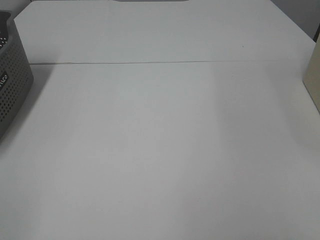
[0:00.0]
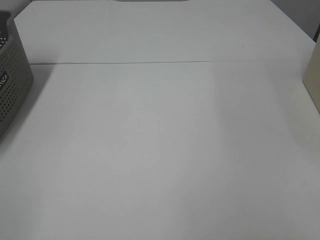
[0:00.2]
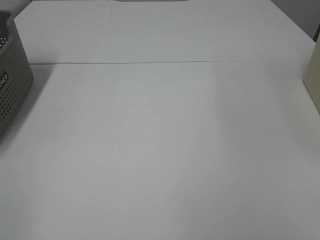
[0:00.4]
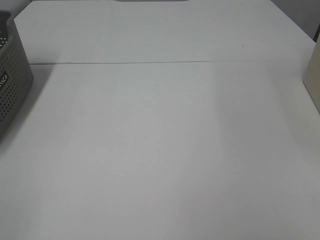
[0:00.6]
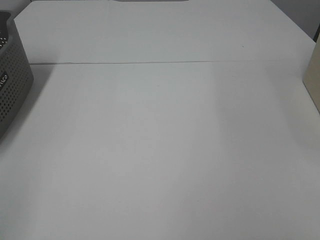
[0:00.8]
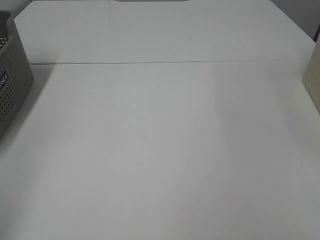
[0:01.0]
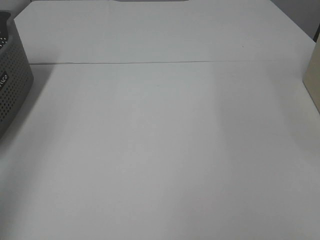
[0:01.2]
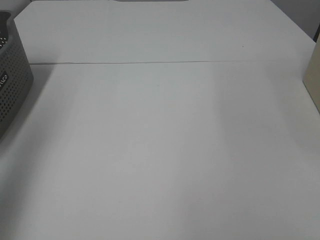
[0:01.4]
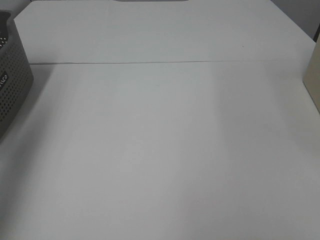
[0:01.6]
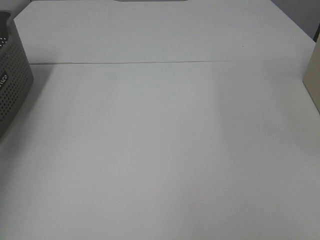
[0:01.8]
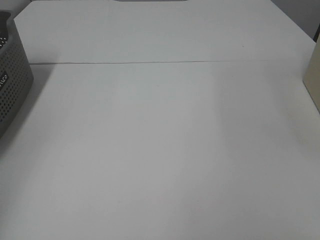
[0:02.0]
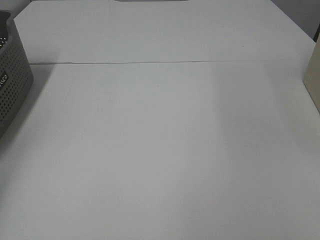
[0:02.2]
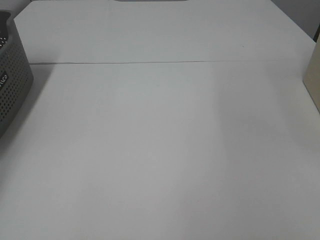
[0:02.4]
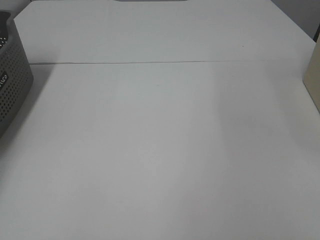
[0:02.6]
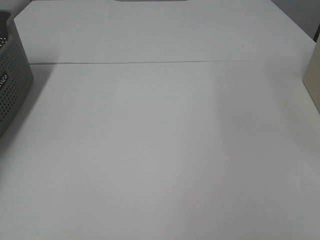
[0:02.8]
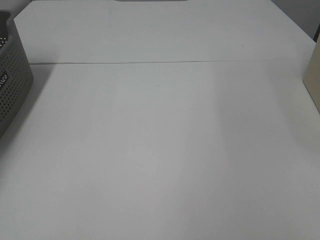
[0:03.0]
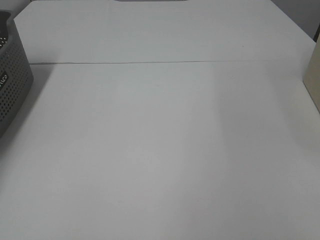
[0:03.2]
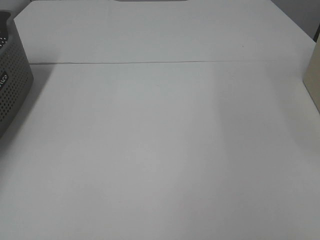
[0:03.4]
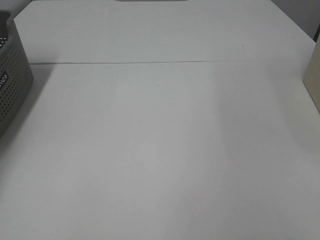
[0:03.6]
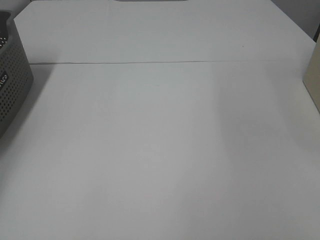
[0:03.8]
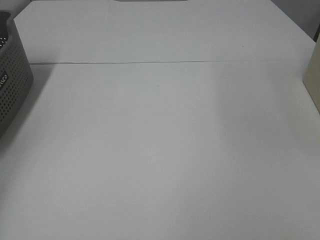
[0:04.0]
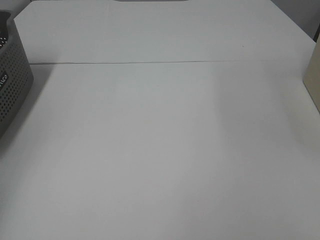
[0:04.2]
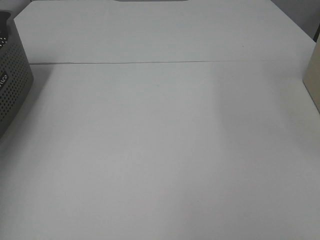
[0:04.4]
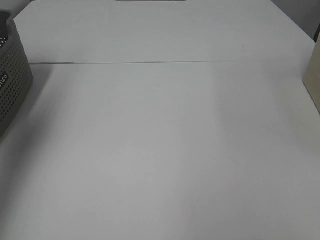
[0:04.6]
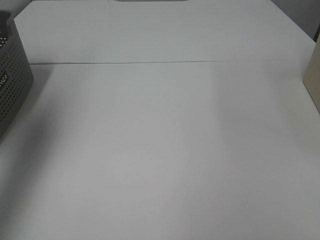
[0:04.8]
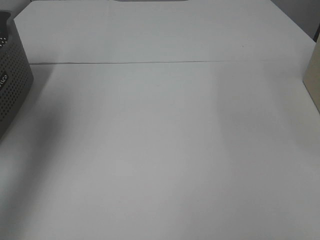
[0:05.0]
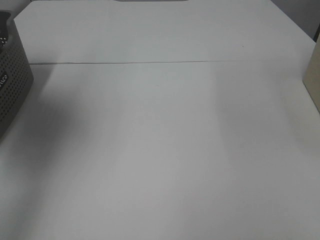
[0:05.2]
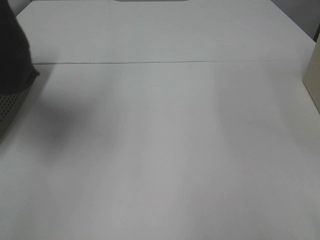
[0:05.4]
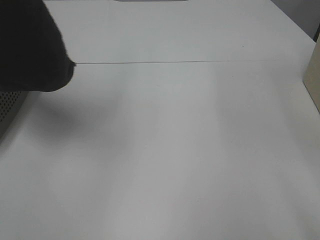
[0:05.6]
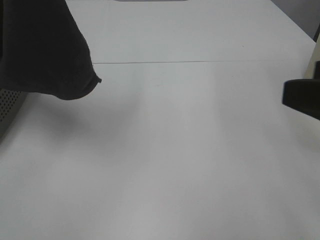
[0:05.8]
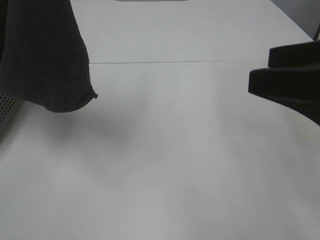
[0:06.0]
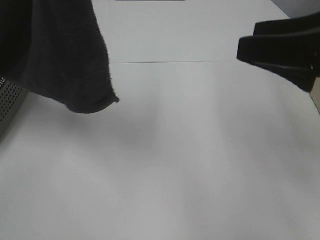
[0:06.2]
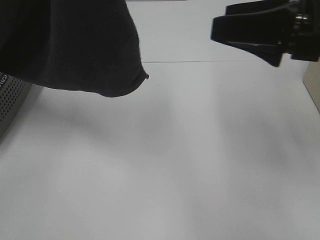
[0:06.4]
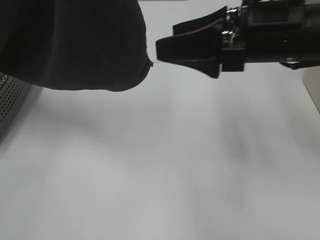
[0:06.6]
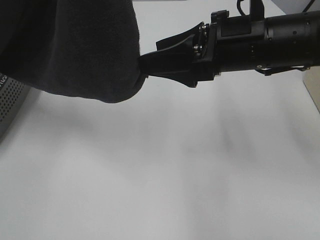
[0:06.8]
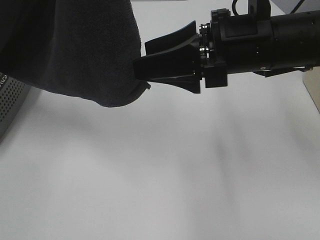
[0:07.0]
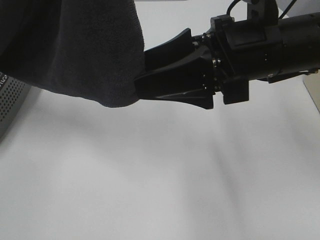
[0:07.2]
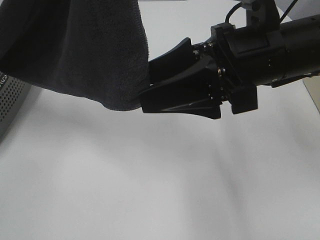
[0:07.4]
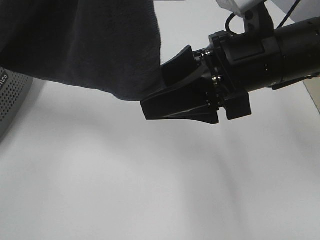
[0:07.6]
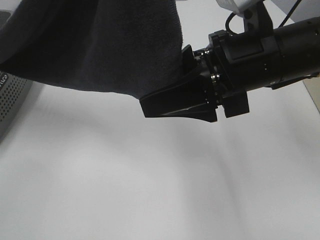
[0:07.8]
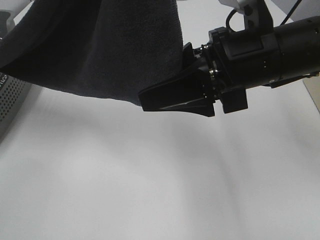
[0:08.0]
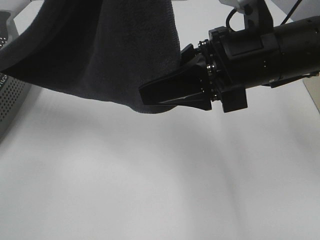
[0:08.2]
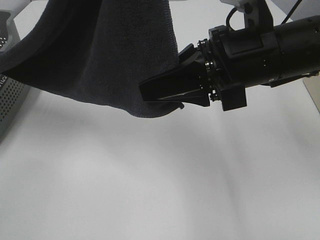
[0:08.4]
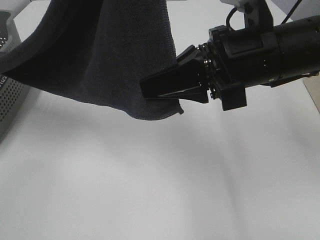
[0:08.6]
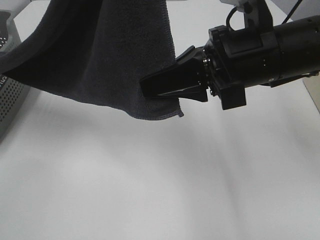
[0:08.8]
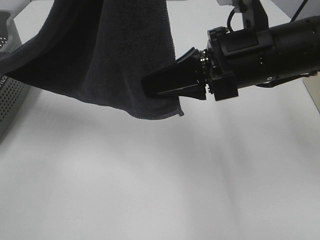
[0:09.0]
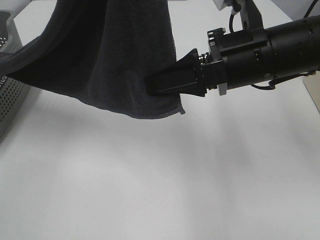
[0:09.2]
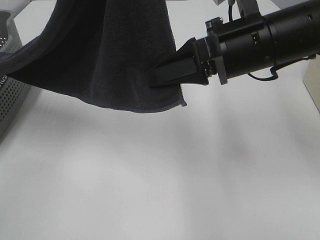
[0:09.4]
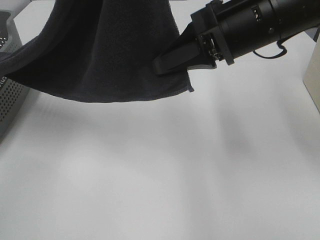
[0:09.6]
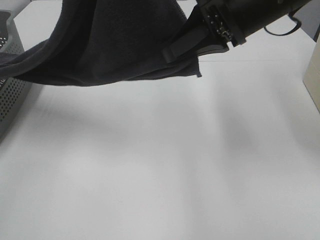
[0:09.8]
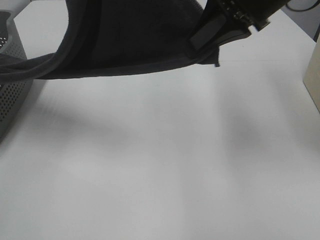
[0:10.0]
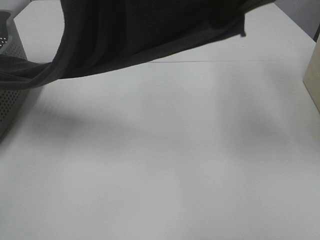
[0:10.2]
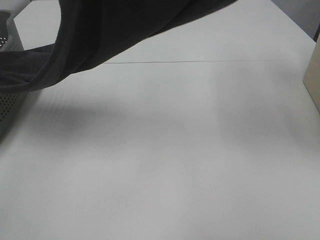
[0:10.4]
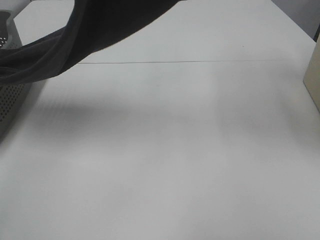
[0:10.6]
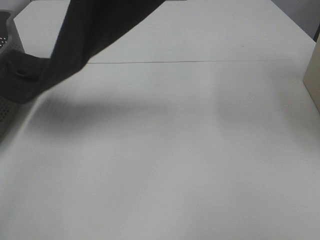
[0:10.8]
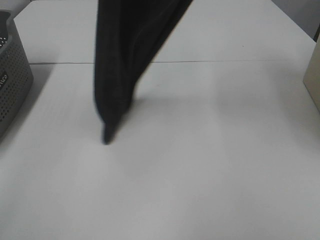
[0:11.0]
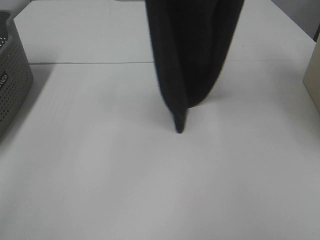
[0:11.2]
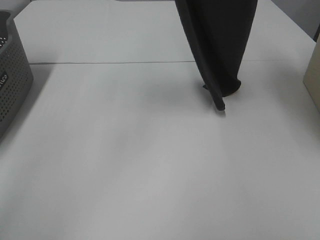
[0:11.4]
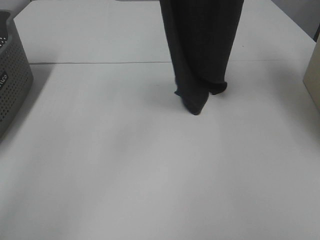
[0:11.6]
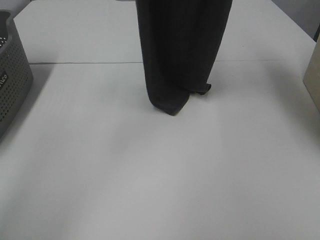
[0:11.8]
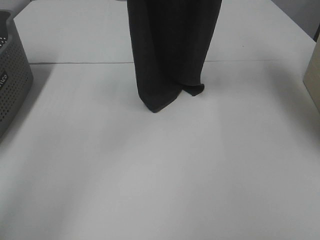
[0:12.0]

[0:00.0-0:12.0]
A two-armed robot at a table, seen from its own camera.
Task of the whole recording: Remove the towel and place it.
Step, 0:05.0 to 0:09.4: Right hand: grab a corner of the grey towel and straighten it.
0:00.0 to 0:01.6: The left gripper is displaced forward and upward by approximately 30 cm.
0:01.6 to 0:03.0: The left gripper moves downward, forward and to the left, approximately 30 cm, and closes up.
0:03.0 to 0:04.4: The left gripper shifts roughly 25 cm upward.
0:04.4 to 0:06.0: The left gripper moves to the right and upward, approximately 30 cm. Meanwhile the right gripper goes some 15 cm forward.
0:06.0 to 0:07.6: The right gripper shifts some 15 cm to the left and forward.
0:07.6 to 0:09.0: The right gripper closes its fingers.
0:09.0 to 0:10.4: The right gripper heads upward, covering about 20 cm.
0:10.4 to 0:12.0: The left gripper is displaced forward by about 15 cm. The right gripper is displaced forward and upward by about 10 cm.

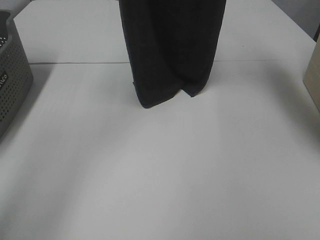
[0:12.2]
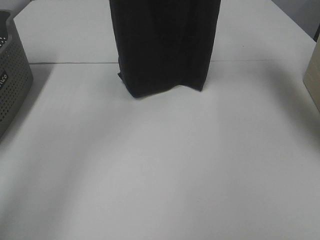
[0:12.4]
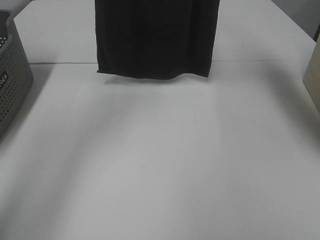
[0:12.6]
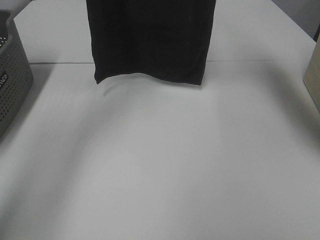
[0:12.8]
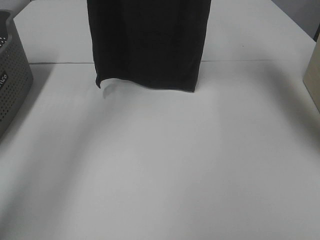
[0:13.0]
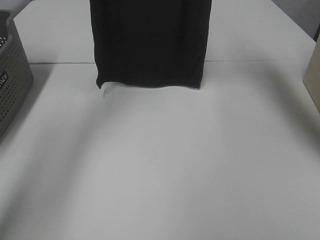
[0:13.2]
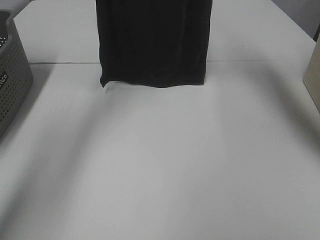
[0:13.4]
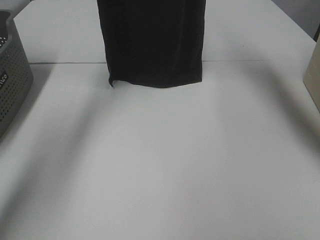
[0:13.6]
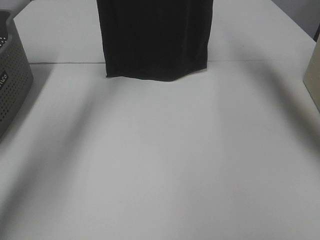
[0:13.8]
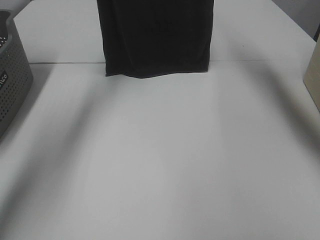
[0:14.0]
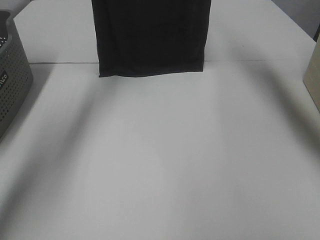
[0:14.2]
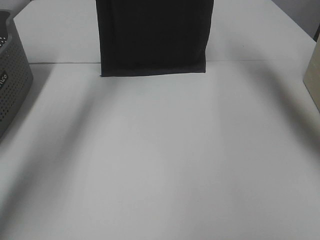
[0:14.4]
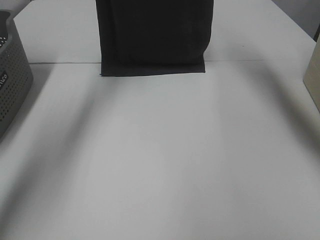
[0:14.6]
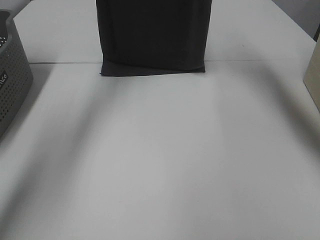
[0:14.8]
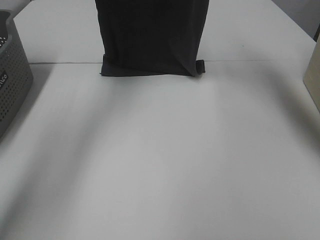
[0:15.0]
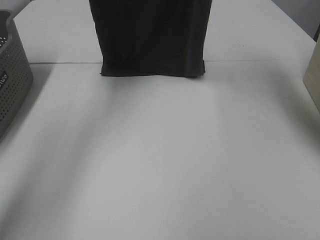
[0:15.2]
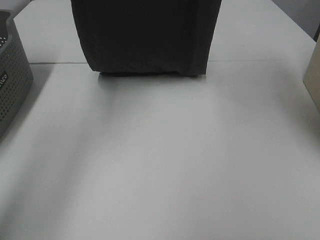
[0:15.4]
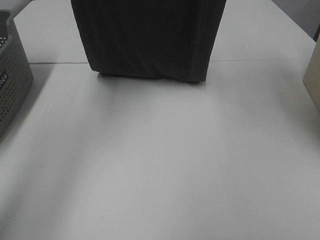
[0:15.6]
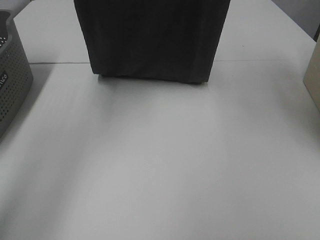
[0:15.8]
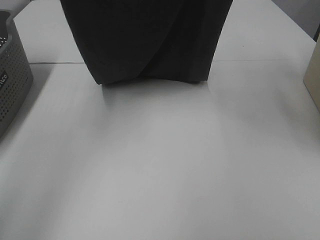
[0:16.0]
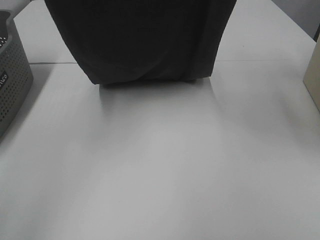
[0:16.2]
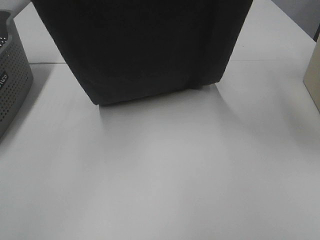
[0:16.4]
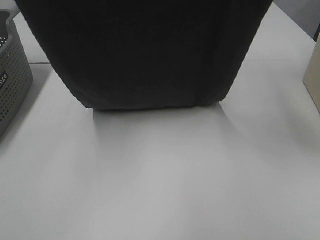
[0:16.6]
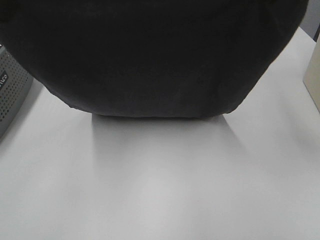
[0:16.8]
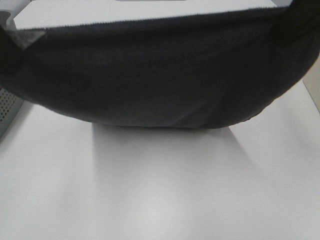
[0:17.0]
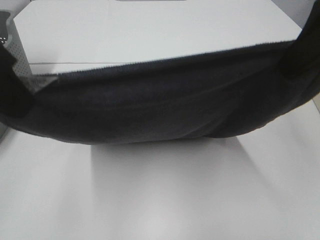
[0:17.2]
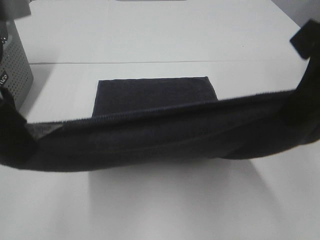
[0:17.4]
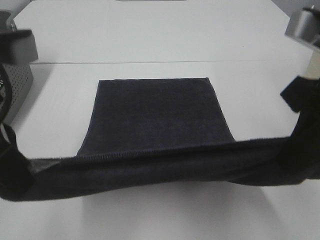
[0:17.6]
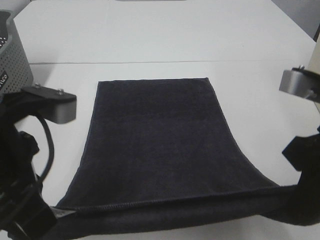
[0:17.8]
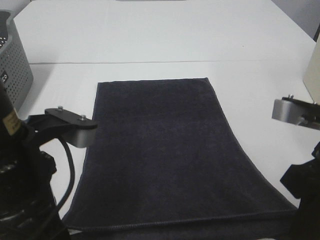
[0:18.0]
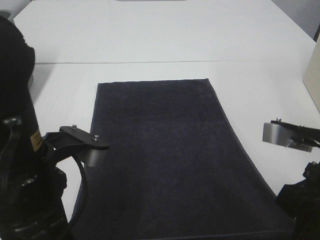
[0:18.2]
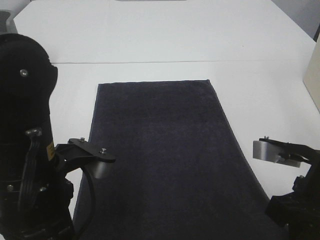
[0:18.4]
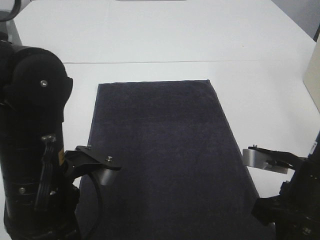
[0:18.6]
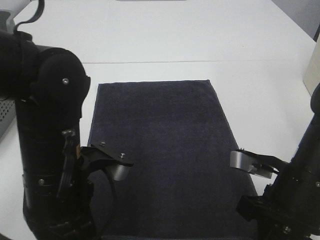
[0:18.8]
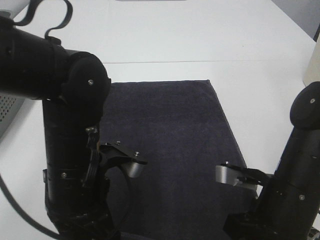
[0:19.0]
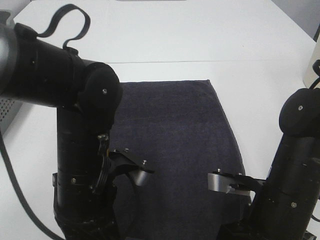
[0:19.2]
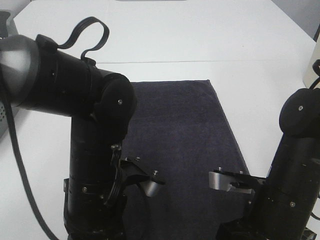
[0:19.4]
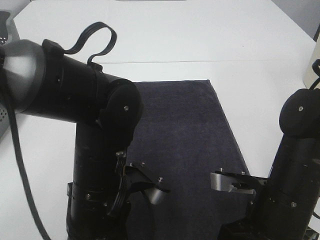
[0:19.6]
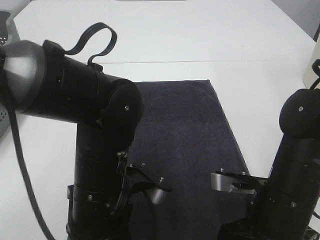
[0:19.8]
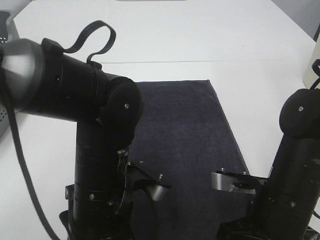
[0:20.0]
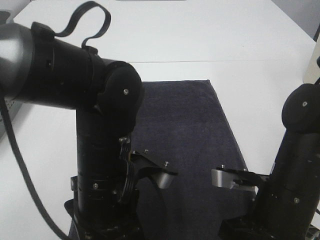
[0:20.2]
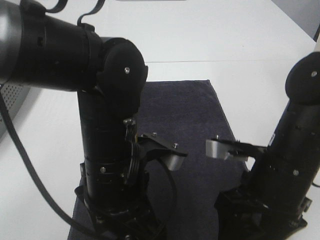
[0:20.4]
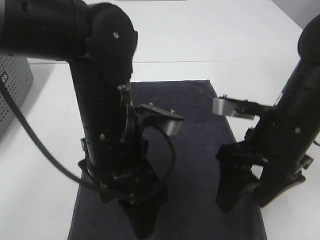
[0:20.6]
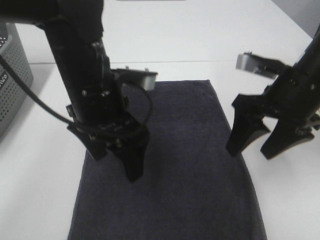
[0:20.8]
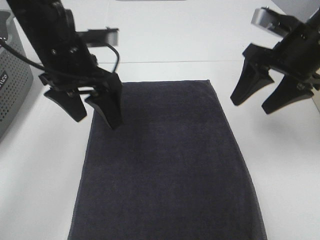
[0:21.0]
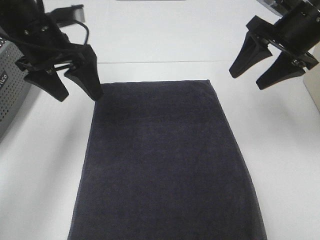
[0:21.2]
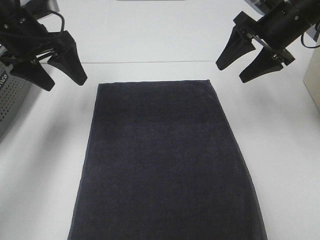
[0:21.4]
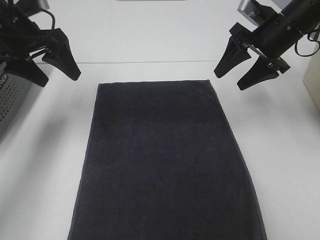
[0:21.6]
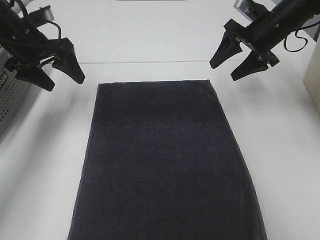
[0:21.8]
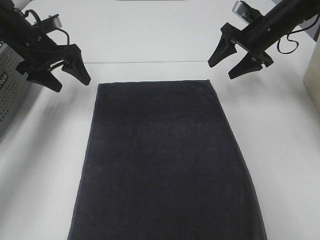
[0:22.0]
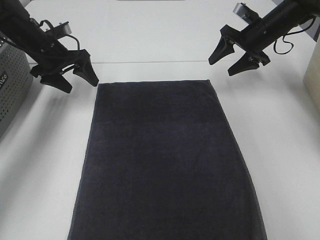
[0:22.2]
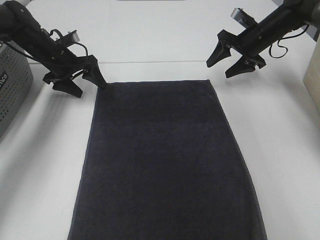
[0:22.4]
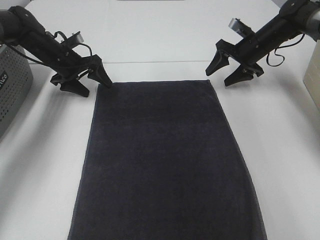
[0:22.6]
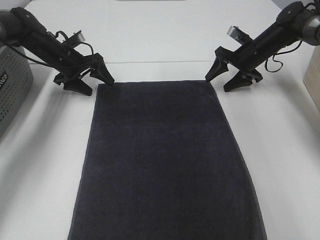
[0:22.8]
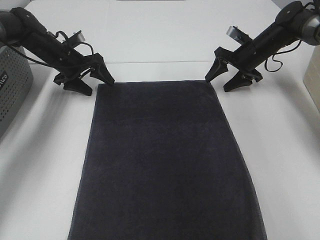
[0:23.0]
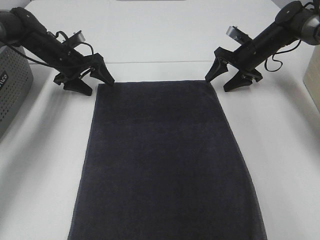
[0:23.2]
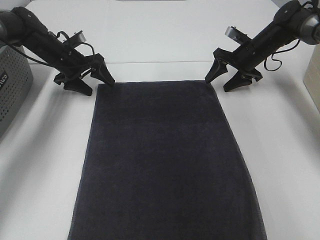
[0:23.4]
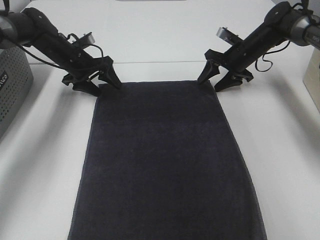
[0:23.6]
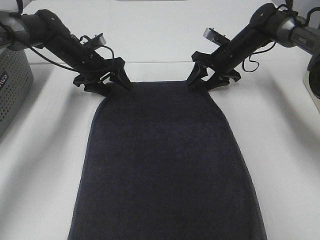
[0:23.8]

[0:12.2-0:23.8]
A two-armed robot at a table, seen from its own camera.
Task of the whole recording: Remove the towel and place it.
Step, 0:12.2 to 0:15.6: Left hand: spread the grey towel flat on the table.
Step, 0:12.2 to 0:15.6: Right hand: spread the grey towel flat on the table.
Step, 0:15.8 to 0:21.0: Left hand:adjust the gray towel.
Step, 0:15.8 to 0:21.0: Right hand:adjust the gray towel.
0:12.2 to 0:13.6: The left gripper is displaced forward by approximately 10 cm, while the right gripper travels forward by roughly 5 cm.
0:15.0 to 0:16.6: The grippers both shift backward by roughly 20 cm.
0:16.6 to 0:18.0: The two grippers go approximately 25 cm downward and backward.
0:18.0 to 0:19.4: The right gripper shifts roughly 10 cm downward; the left gripper moves downward and to the right, some 10 cm.
0:19.4 to 0:21.0: The right gripper heads forward, upward and to the right, covering about 20 cm, and opens its fingers. Meanwhile the left gripper moves forward, upward and to the left, approximately 20 cm, and opens up.
0:21.0 to 0:22.4: The right gripper moves forward and downward, some 25 cm. Meanwhile the left gripper goes approximately 25 cm forward, downward and to the left.
0:22.4 to 0:23.8: The right gripper goes some 10 cm to the left and downward. Meanwhile the left gripper travels to the right by about 5 cm.
